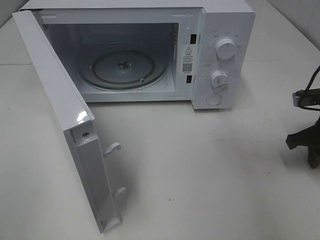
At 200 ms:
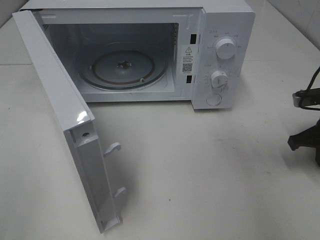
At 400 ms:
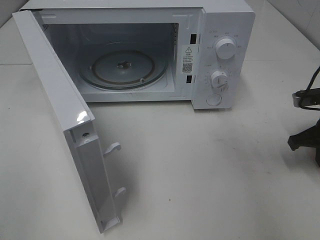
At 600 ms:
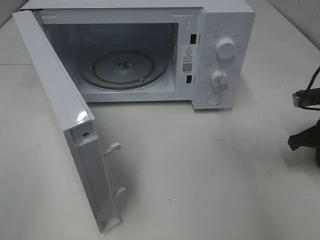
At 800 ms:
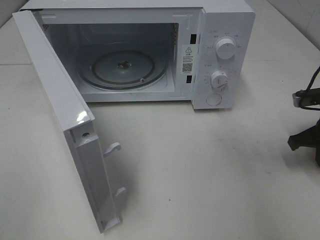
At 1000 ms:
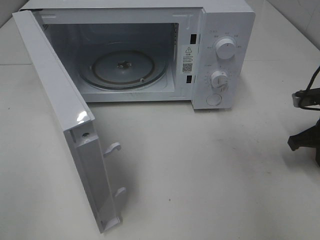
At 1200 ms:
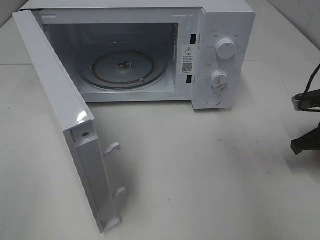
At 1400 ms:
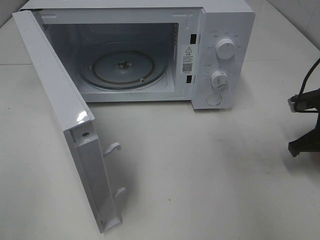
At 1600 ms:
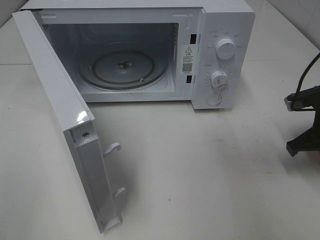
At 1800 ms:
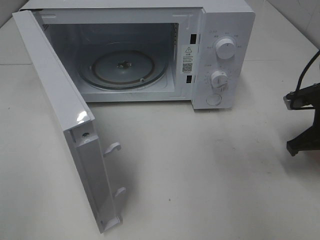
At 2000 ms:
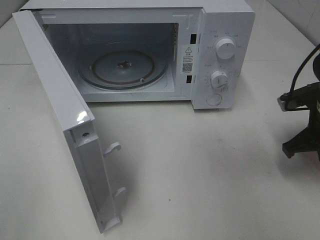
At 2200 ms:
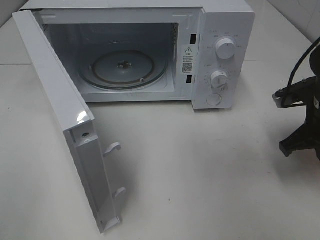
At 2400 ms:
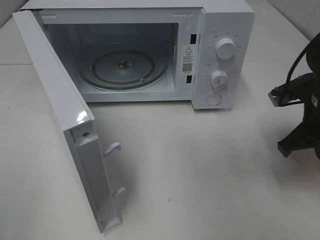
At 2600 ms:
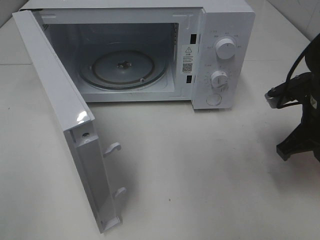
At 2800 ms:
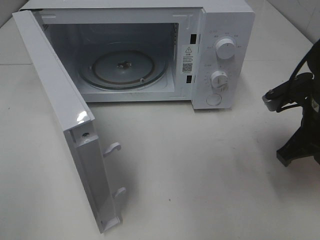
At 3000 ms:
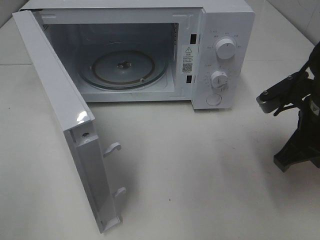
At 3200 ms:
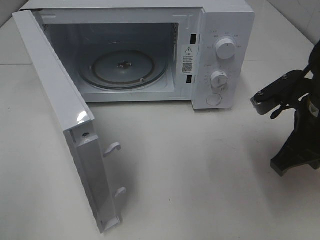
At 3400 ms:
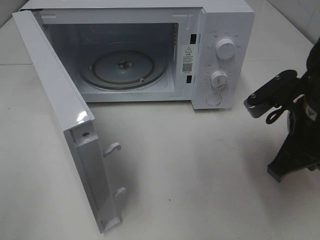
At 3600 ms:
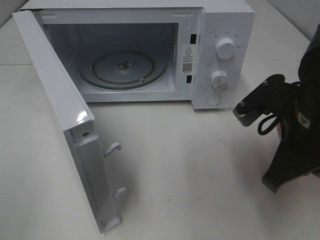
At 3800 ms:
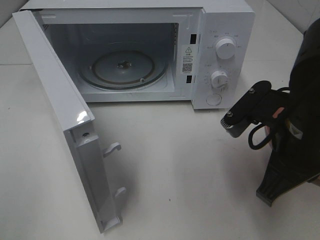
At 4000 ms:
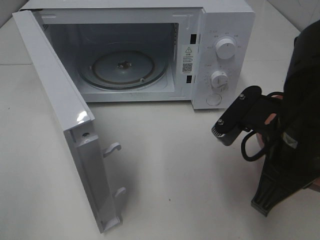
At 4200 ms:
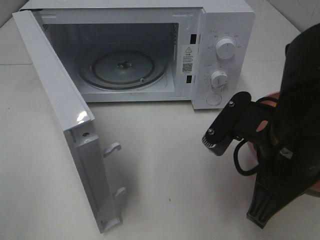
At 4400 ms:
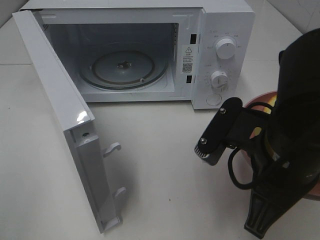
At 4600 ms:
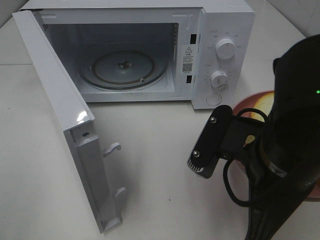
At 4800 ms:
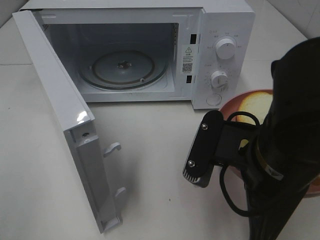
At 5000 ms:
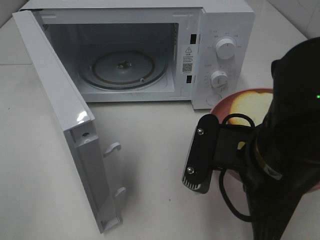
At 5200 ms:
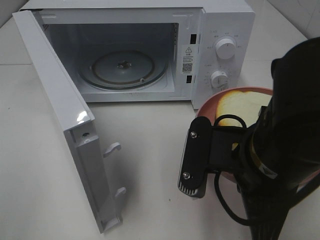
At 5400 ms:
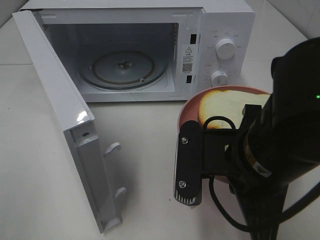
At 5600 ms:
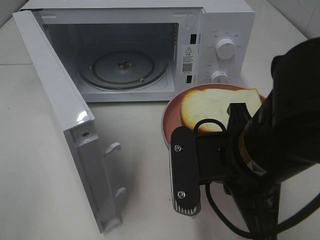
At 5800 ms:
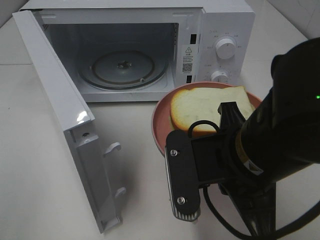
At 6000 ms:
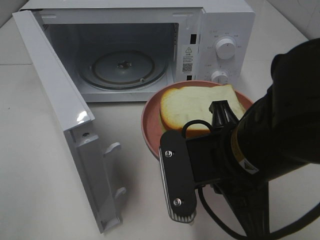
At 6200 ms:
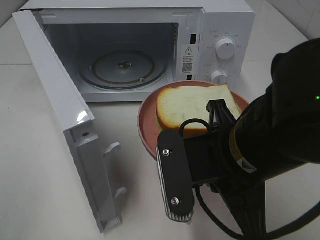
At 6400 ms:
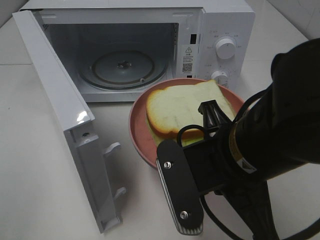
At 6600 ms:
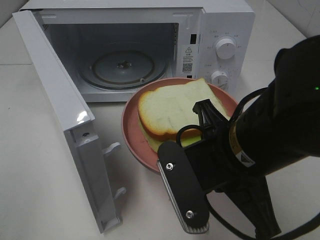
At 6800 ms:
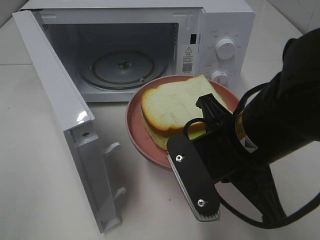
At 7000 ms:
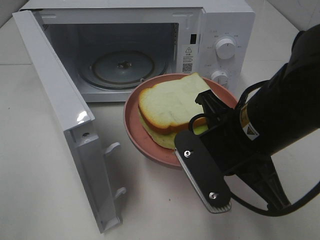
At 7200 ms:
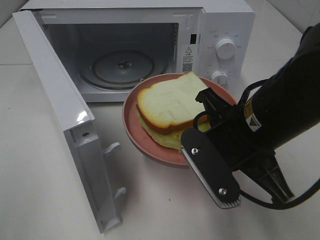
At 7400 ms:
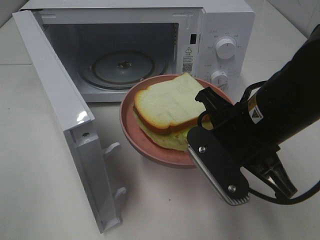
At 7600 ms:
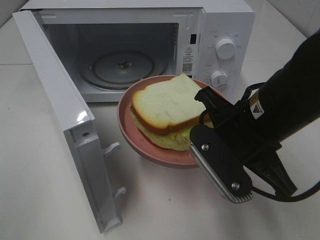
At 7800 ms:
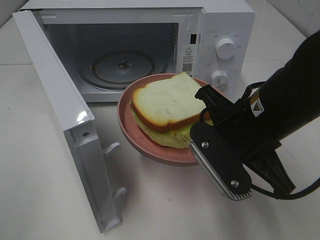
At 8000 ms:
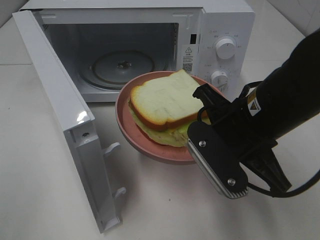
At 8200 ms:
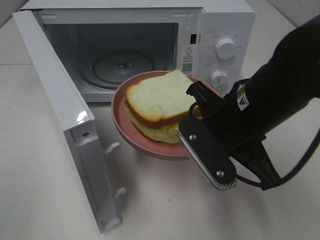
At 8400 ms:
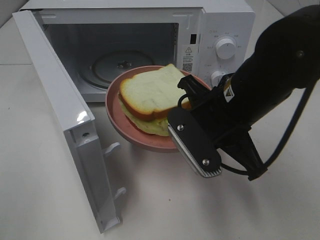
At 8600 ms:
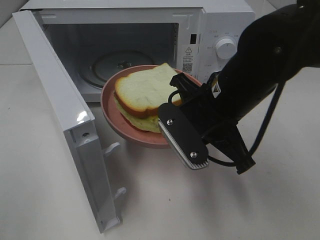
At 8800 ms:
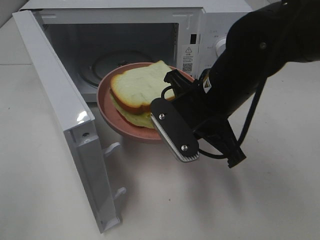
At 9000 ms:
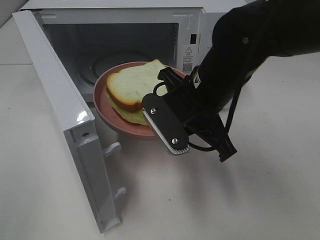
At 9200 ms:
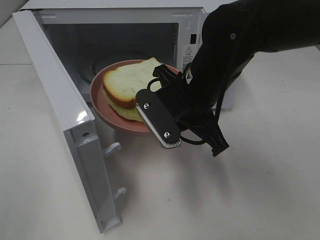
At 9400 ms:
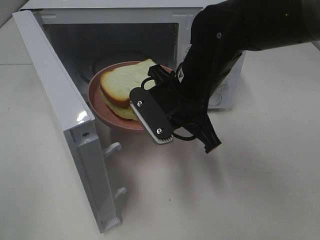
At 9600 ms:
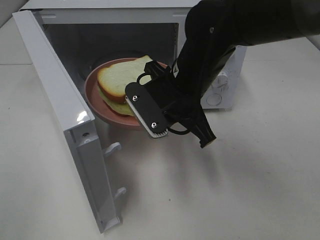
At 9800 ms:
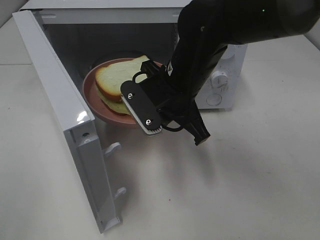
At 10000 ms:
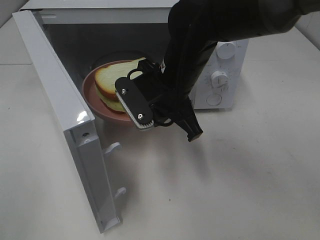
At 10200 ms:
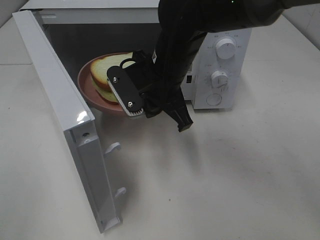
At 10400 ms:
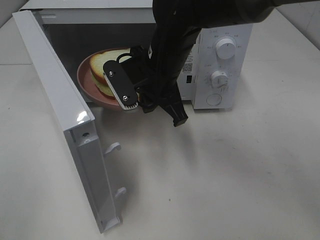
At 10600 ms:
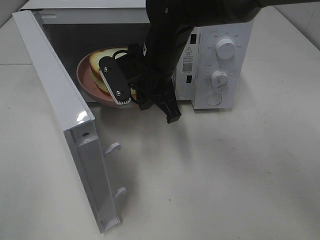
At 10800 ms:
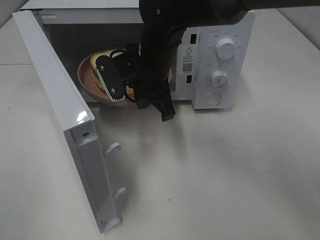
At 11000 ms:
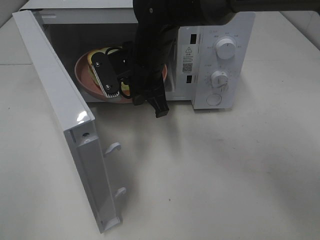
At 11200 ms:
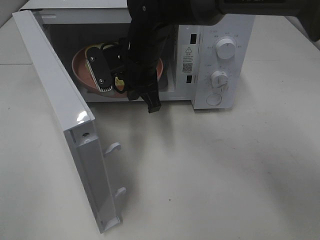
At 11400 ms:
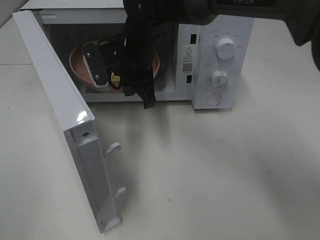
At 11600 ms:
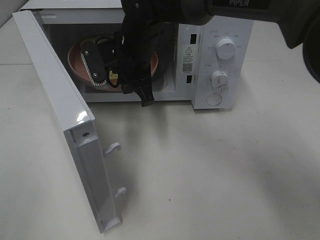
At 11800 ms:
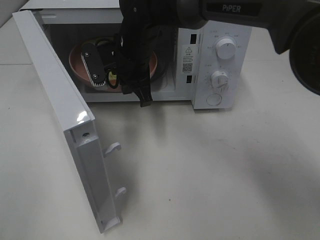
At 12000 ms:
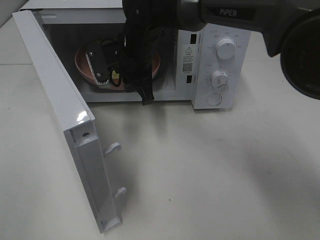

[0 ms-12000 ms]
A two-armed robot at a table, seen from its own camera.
Task of the whole recording: Heat Sandwich.
0 ms to 1600 ms: The grippers stay close to where they were, moving slightly.
1600 ms to 3000 ms: The right gripper heads to the left, backward and upward, covering approximately 10 cm.
3000 ms to 4400 ms: The right gripper travels to the left and backward by about 10 cm.
6000 ms to 7600 ms: The right gripper heads forward, covering approximately 5 cm.
7600 ms to 9000 ms: The right gripper goes about 10 cm forward and to the left.
9000 ms to 10400 ms: The right gripper moves forward and to the left, roughly 10 cm.
10400 ms to 12000 ms: The right gripper heads forward, covering roughly 10 cm.

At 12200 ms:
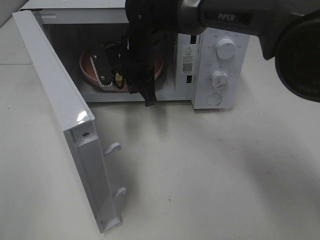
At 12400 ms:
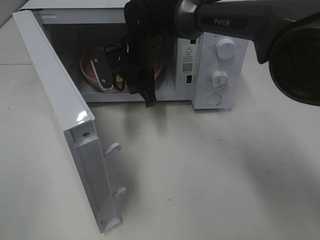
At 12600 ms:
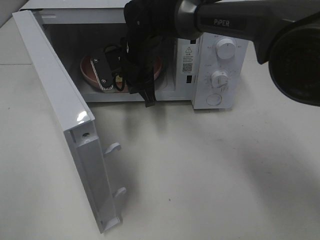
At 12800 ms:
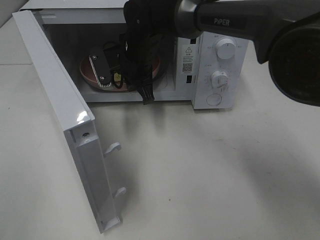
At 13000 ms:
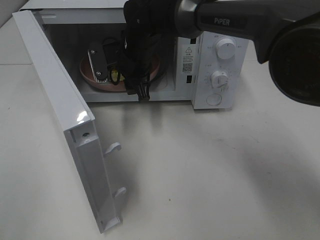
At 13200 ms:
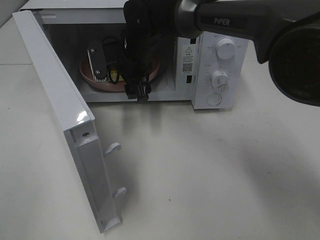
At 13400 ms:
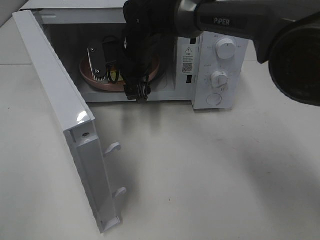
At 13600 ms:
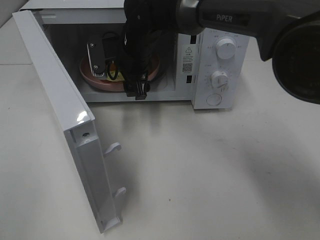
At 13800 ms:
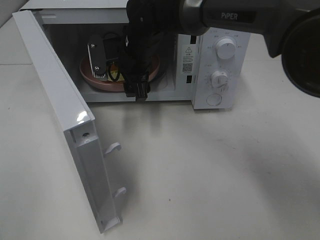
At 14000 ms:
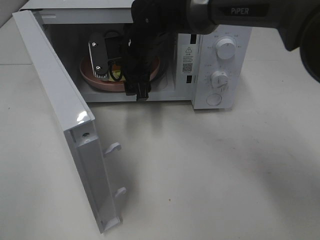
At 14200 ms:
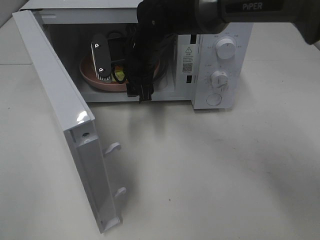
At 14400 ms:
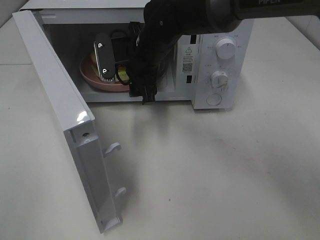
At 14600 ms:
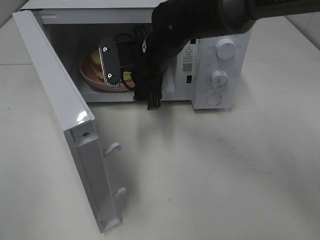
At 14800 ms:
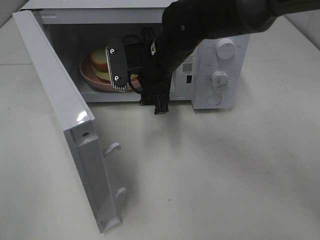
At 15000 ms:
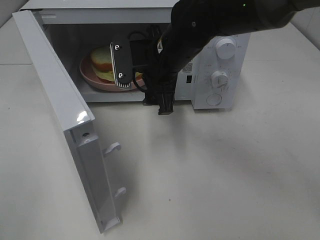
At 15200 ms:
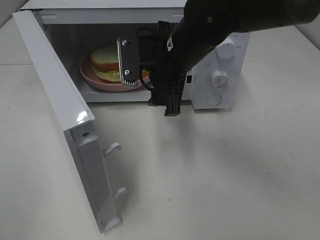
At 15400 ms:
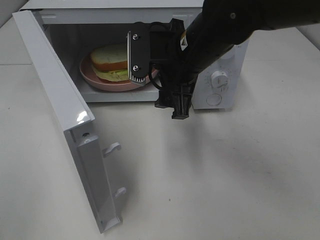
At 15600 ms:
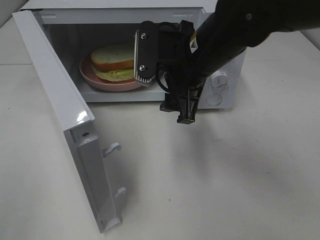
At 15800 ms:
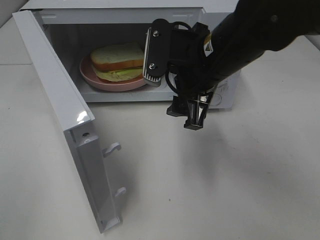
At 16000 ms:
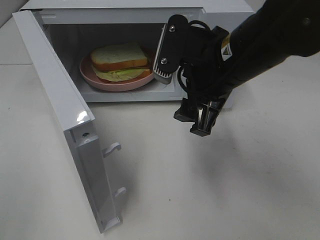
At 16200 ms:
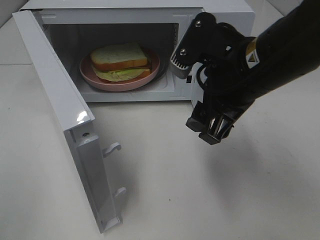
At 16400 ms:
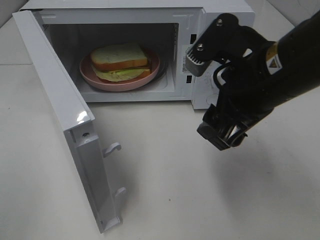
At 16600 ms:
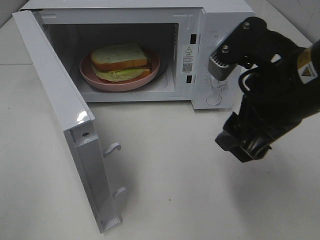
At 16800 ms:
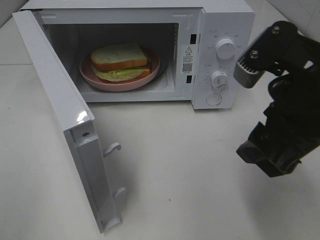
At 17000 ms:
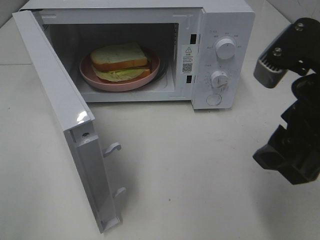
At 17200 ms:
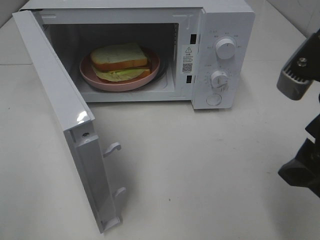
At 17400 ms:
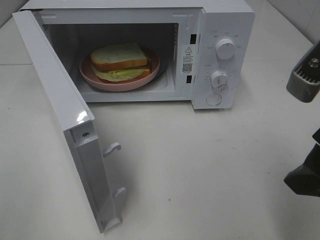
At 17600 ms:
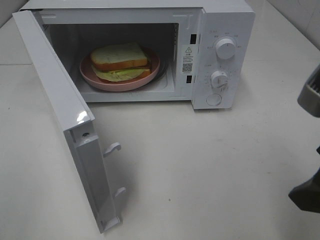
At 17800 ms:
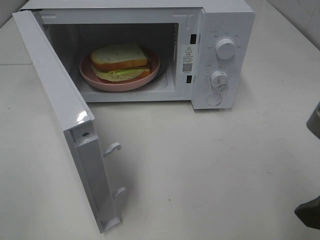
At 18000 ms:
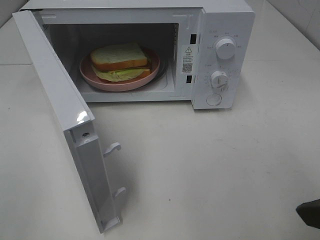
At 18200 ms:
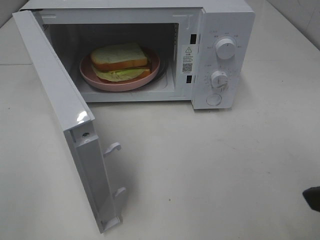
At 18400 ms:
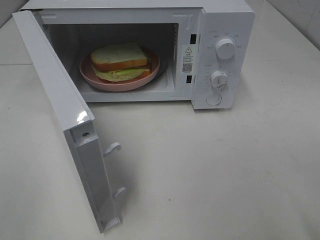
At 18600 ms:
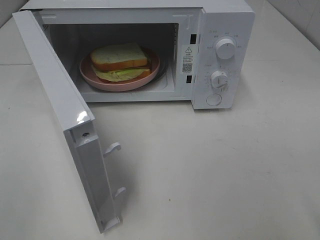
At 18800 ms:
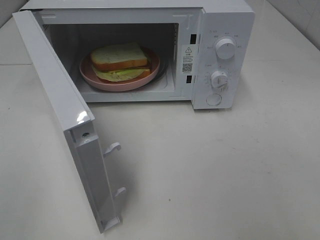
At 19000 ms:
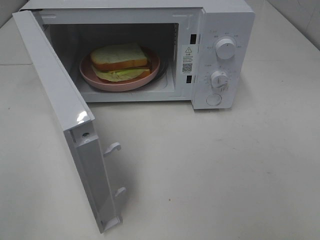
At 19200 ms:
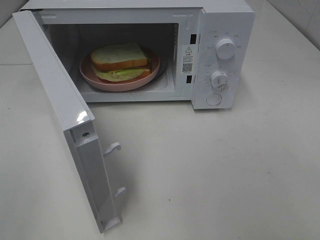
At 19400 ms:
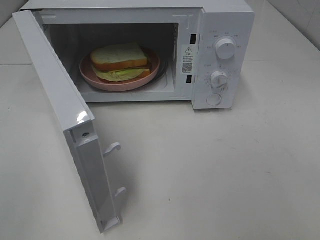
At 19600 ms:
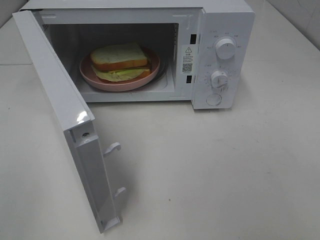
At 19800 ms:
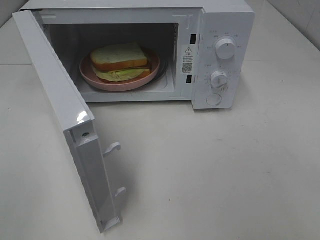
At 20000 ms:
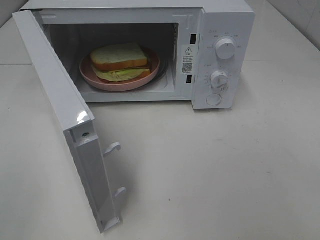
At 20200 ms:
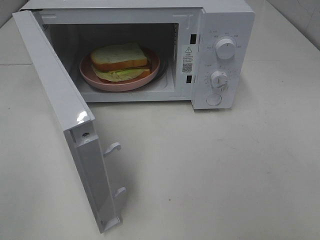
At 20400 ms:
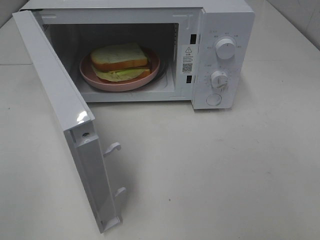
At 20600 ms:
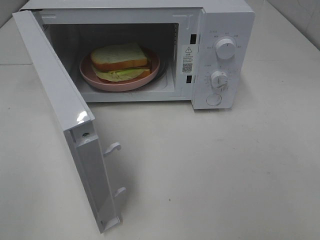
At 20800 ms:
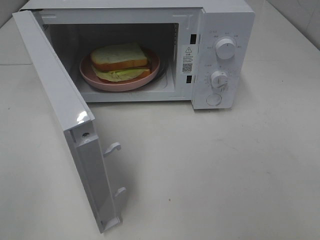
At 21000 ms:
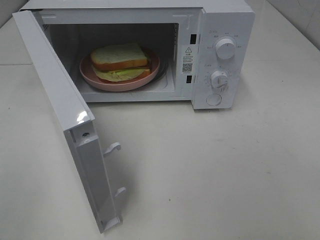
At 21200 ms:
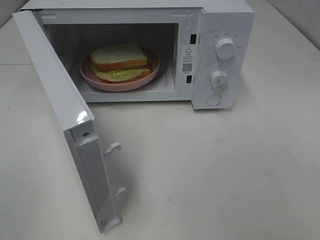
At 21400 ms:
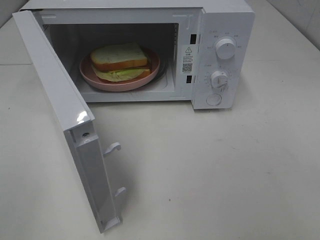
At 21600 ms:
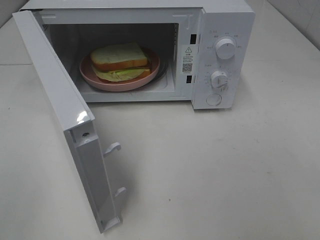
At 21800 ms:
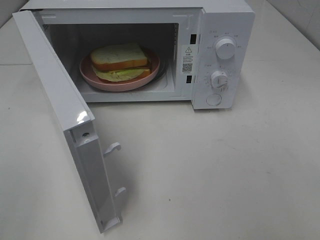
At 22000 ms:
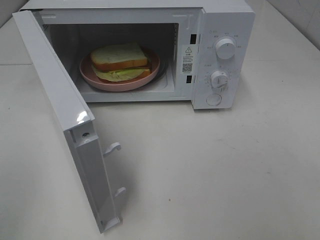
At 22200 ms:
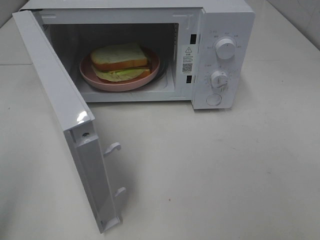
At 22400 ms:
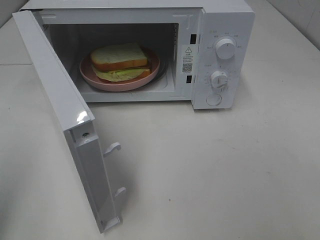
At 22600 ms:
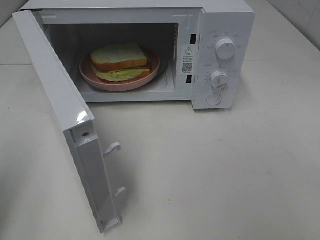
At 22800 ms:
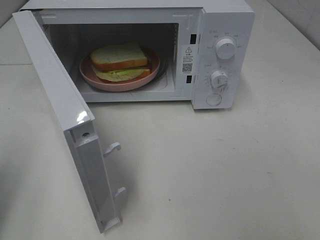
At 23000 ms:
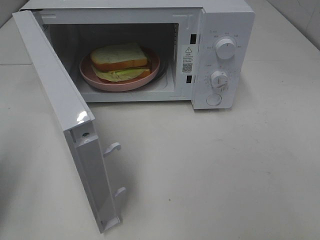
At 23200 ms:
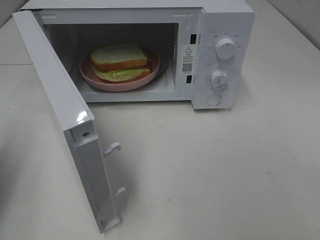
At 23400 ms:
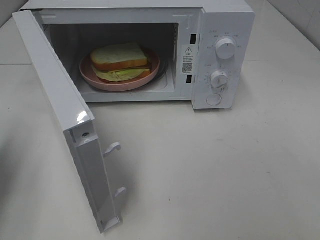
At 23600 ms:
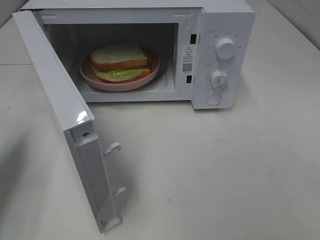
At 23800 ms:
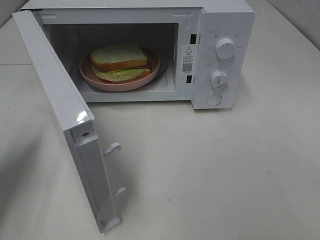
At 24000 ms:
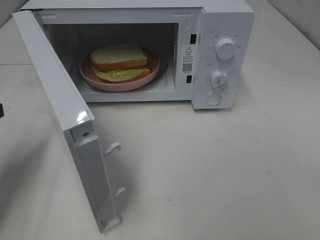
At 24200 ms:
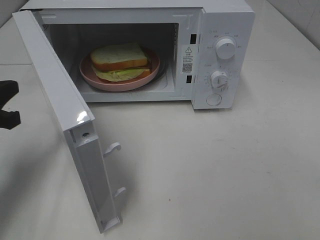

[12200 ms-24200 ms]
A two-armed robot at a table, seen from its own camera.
Task of the whole recording: Heat Sandwich.
Step, 12200 ms to 14600 ms: Right hand: place the plate in the microwave.
12200 ms to 13800 ms: The right gripper opens up.
13800 ms to 15200 ms: The right gripper heads backward and to the right, covering some 10 cm.
15200 ms to 16600 ms: The right gripper travels backward and to the right by about 20 cm.
16600 ms to 18200 ms: The right gripper heads backward and to the right, covering approximately 10 cm.
18200 ms to 19800 ms: The right gripper moves backward and to the right, about 10 cm.
19800 ms to 21200 ms: Both grippers stay about where they are.
22600 ms to 24200 ms: The left gripper is displaced forward and downward by some 15 cm.
